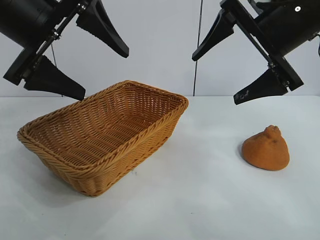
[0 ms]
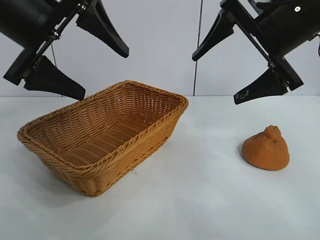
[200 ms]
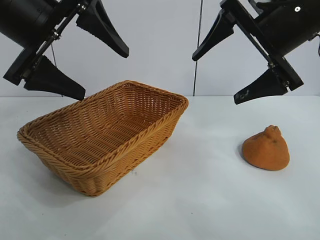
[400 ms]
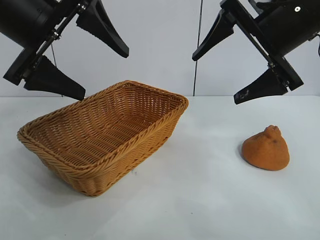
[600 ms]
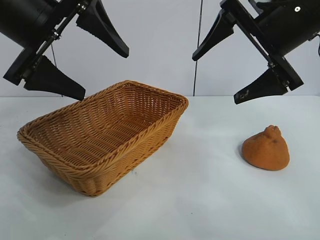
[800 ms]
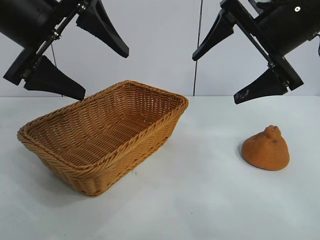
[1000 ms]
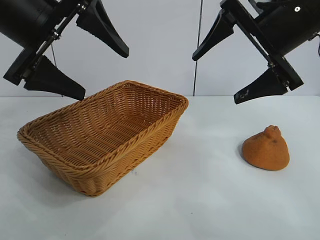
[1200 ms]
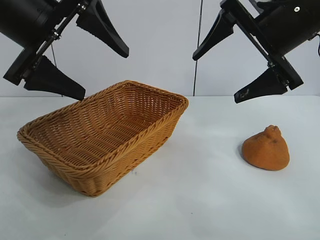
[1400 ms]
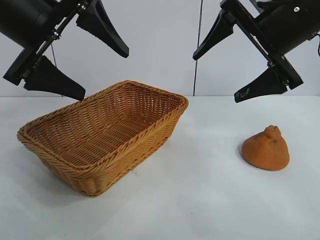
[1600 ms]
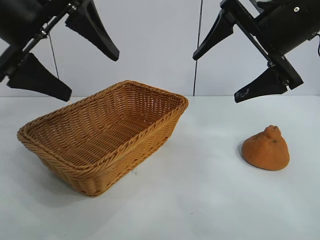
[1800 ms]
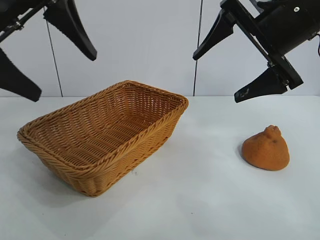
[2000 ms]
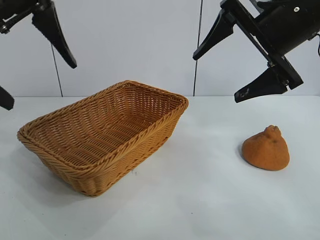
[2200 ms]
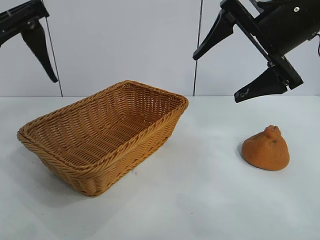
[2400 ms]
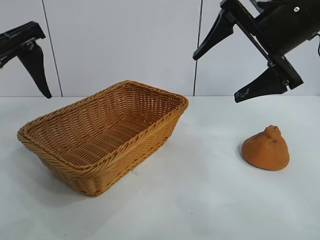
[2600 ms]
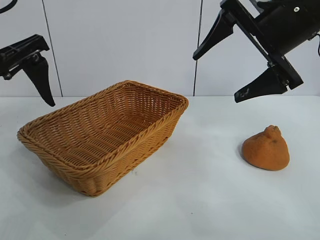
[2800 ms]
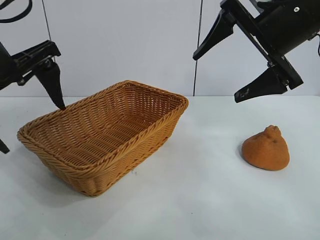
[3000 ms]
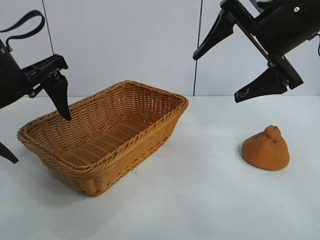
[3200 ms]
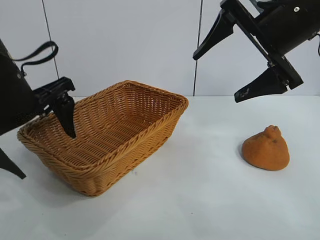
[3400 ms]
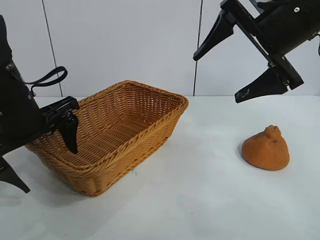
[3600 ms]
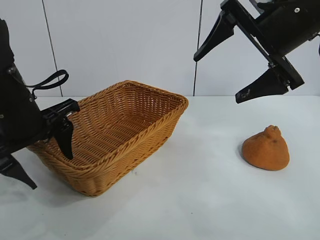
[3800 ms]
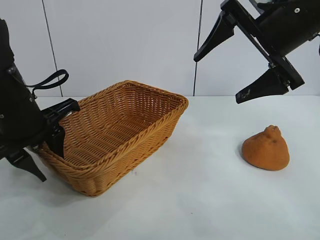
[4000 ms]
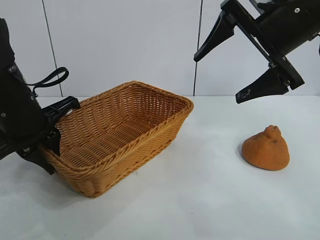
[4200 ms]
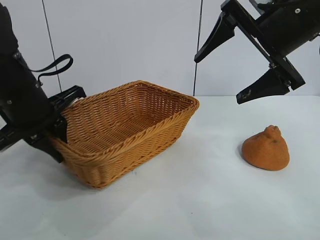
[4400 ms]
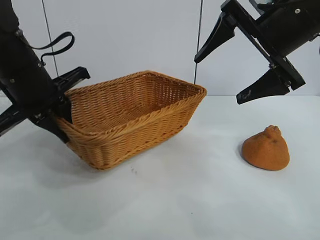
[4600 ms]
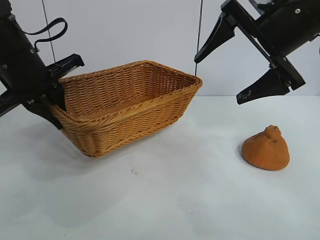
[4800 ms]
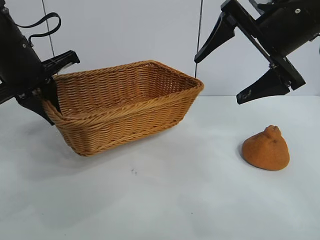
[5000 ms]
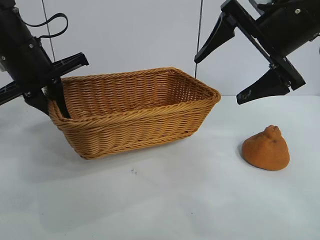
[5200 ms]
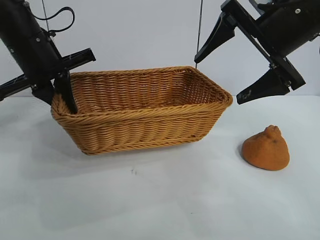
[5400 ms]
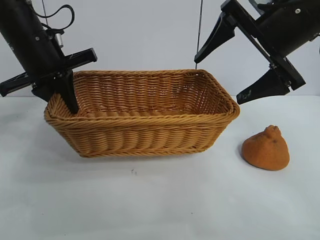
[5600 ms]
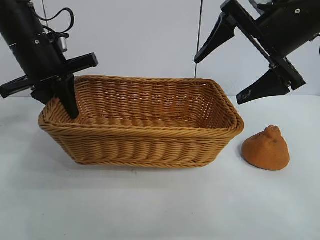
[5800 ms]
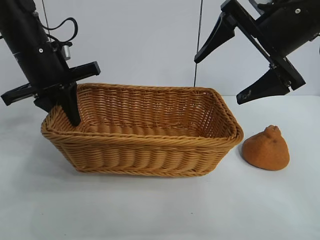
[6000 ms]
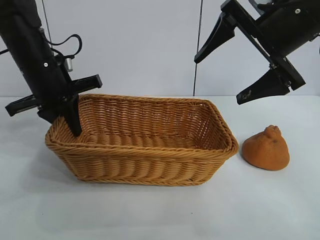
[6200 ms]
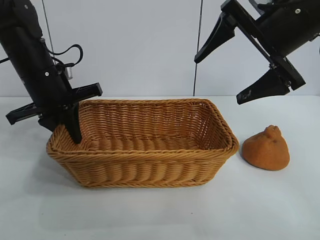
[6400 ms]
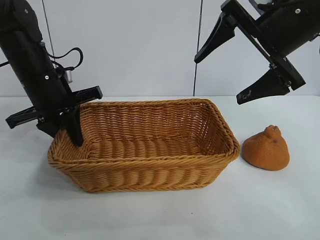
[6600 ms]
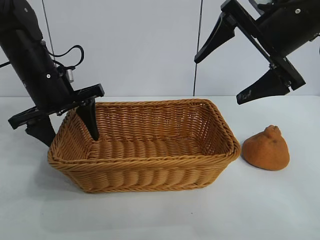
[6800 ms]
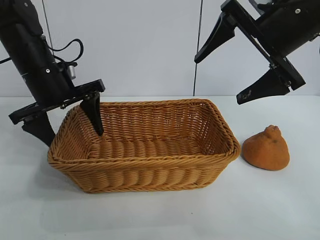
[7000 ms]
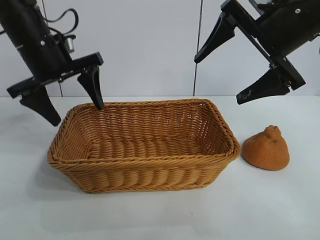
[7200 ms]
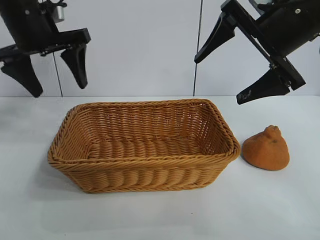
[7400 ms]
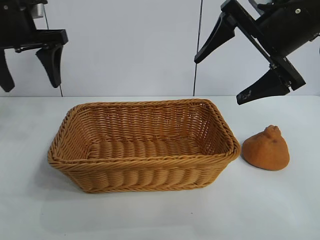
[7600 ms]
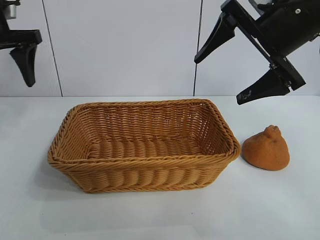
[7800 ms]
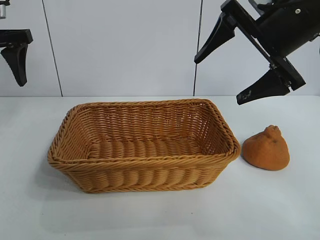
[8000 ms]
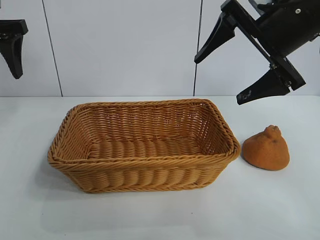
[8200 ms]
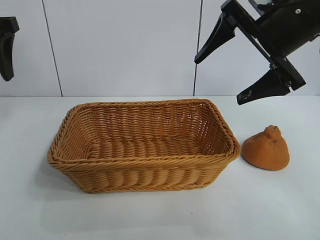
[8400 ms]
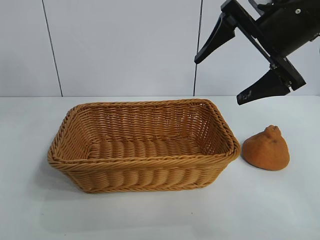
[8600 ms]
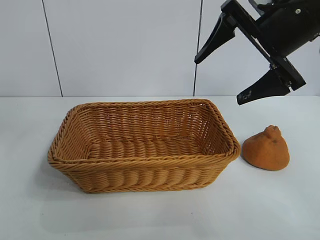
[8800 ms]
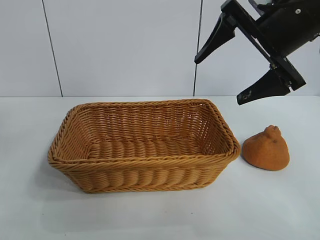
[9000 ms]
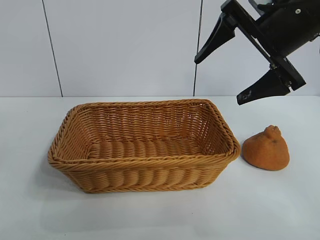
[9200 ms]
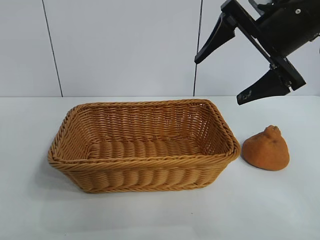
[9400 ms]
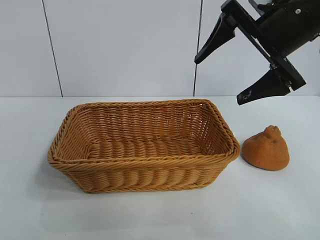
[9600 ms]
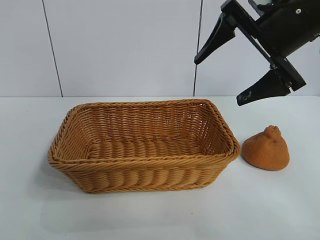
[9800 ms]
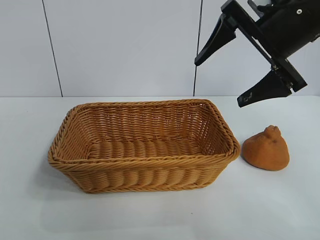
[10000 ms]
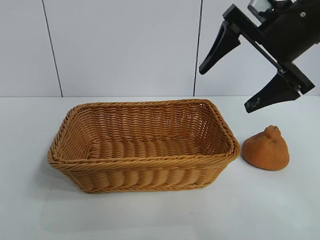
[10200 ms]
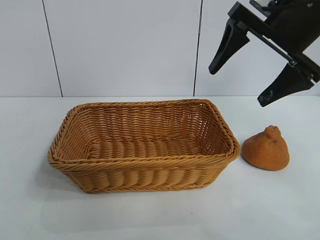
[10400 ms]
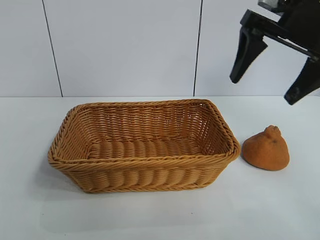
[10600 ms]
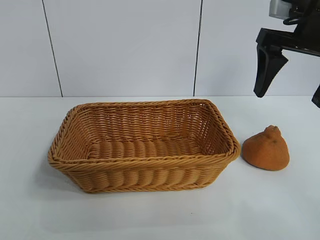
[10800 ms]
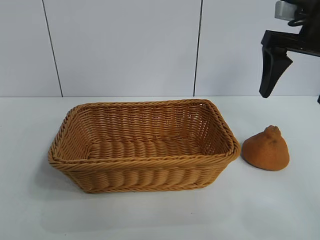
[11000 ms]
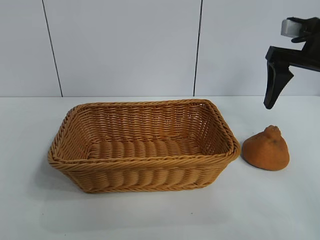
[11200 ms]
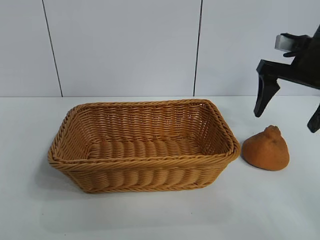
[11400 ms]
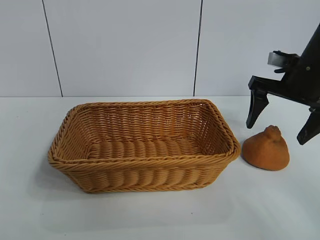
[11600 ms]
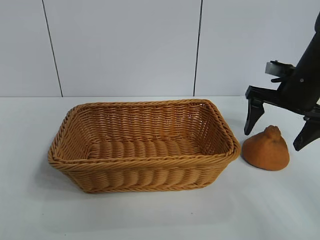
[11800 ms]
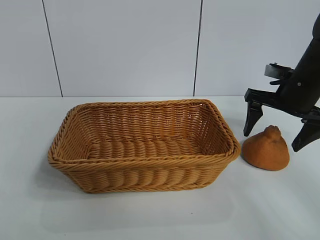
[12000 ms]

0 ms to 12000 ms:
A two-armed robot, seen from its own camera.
Task of the whole recording: pick up the orange and put it into the basket.
Step, 1600 ms to 4200 ms: Grasp the basket with left gripper.
Step, 4400 ms to 7400 ms: Place the basket in the center of view with left gripper.

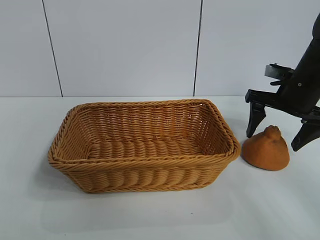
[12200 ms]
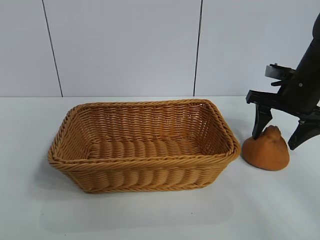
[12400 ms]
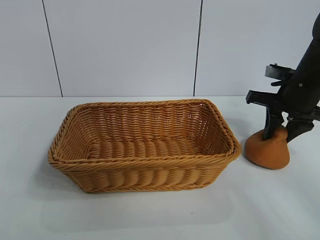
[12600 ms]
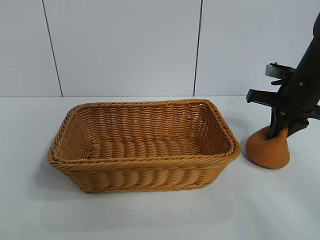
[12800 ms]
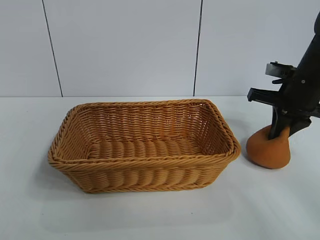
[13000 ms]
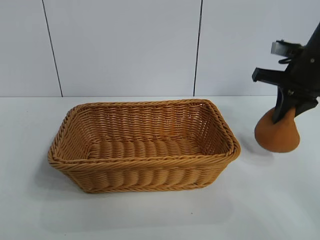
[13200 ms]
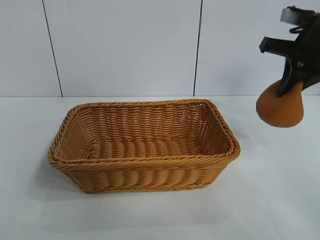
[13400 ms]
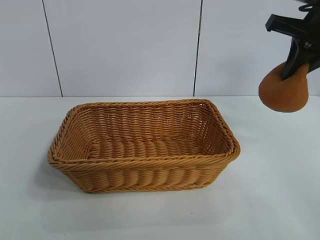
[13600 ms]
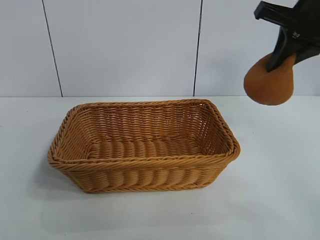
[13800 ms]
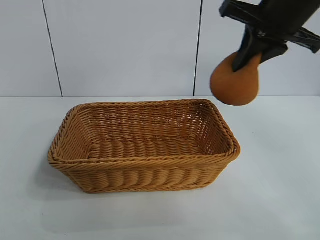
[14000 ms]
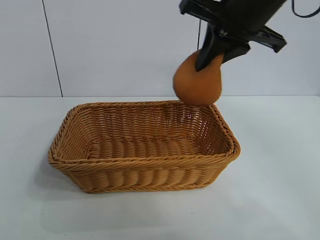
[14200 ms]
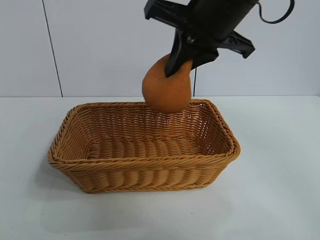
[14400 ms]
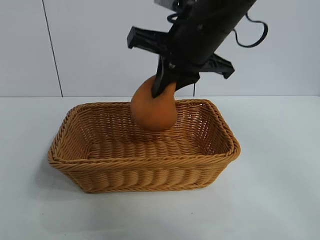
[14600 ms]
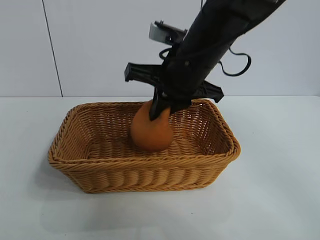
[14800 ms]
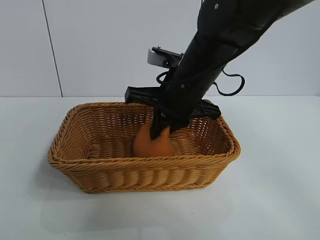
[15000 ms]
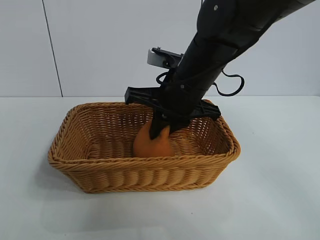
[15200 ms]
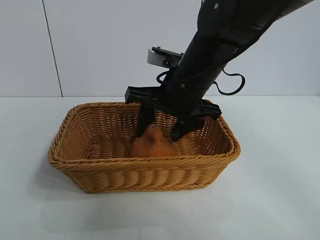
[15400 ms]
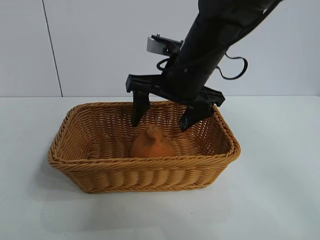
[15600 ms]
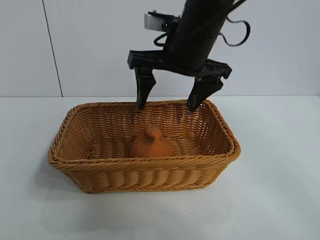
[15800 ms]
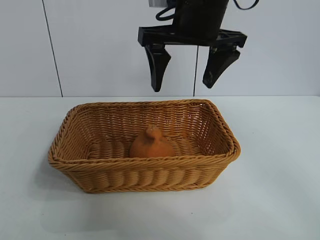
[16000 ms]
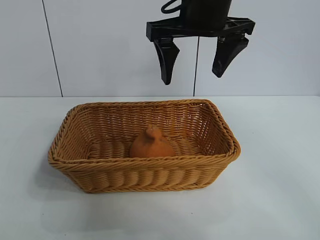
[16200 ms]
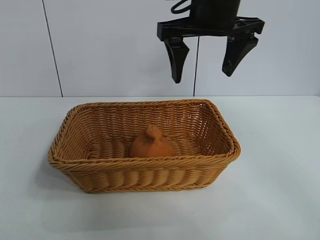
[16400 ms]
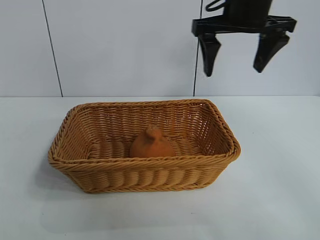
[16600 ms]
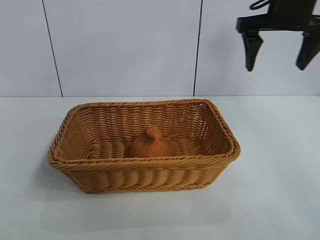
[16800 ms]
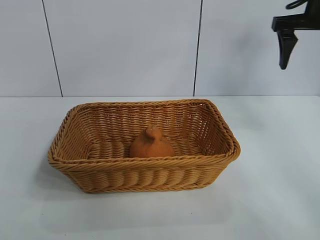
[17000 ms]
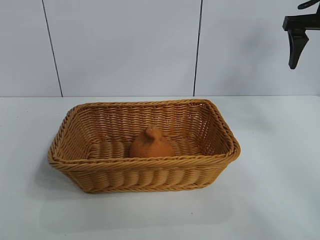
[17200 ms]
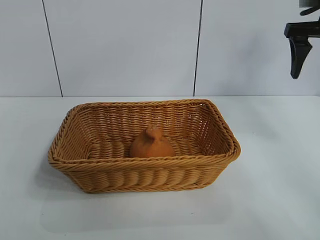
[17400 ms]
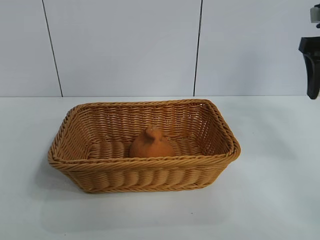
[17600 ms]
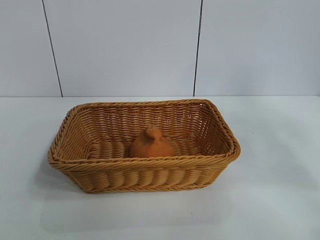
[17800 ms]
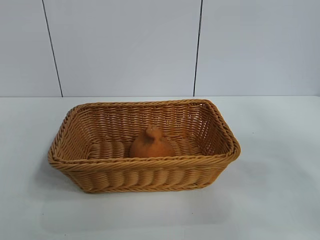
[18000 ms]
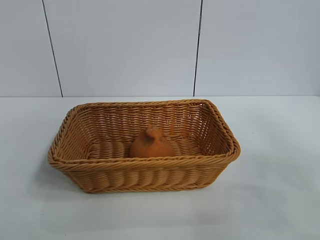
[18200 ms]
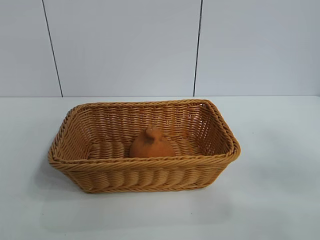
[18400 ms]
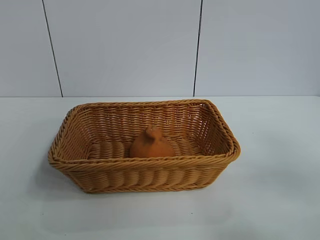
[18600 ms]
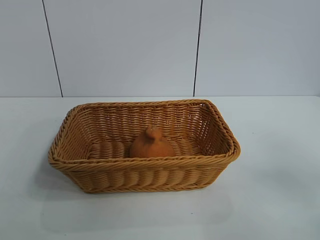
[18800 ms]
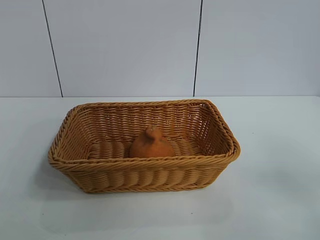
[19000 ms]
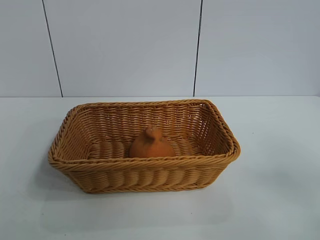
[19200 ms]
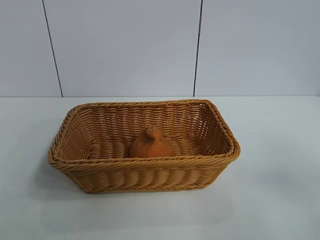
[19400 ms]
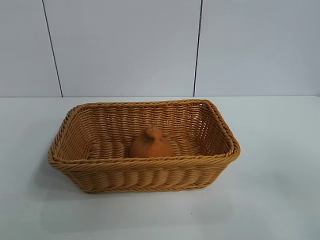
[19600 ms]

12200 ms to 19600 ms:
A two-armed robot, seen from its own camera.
Task of the whole recording: pick up the orange and put it into the basket.
Step, 13200 ms to 15800 ms: Place the orange in the basket with right gripper.
